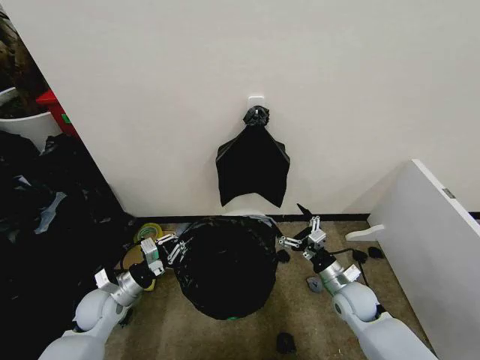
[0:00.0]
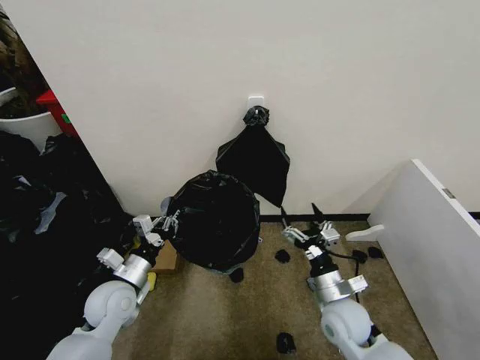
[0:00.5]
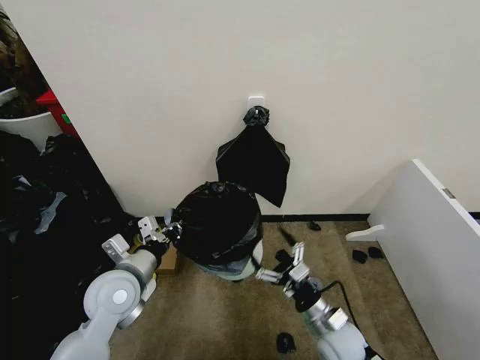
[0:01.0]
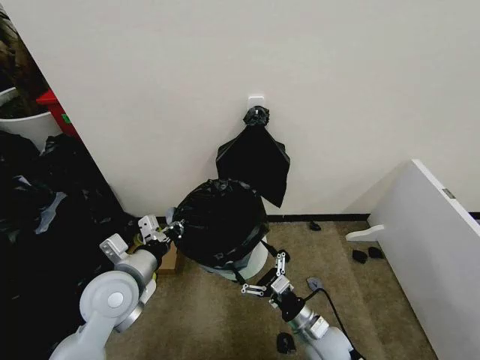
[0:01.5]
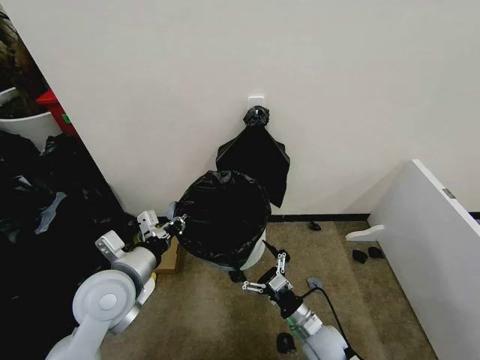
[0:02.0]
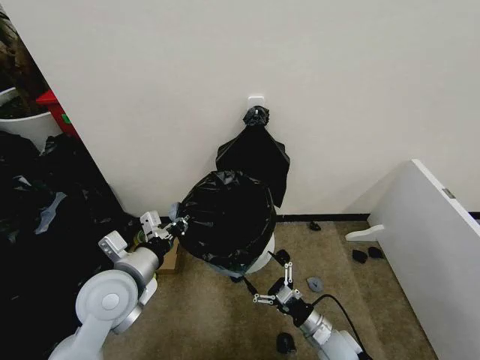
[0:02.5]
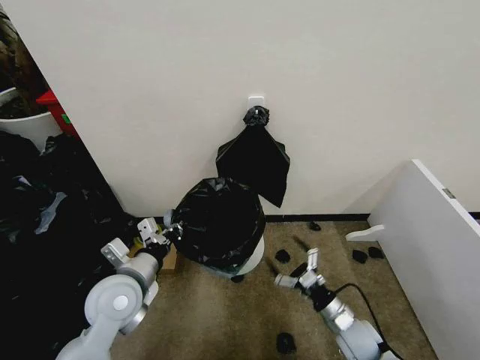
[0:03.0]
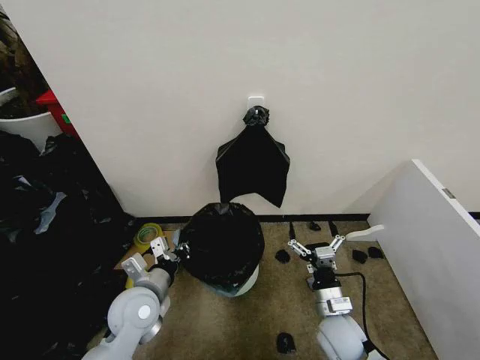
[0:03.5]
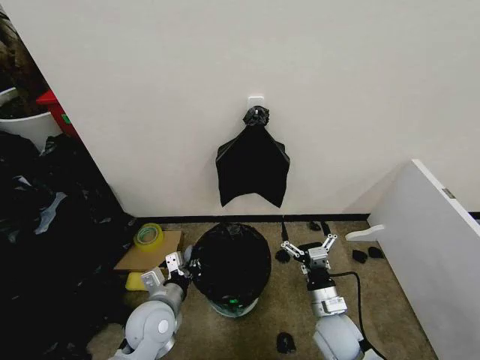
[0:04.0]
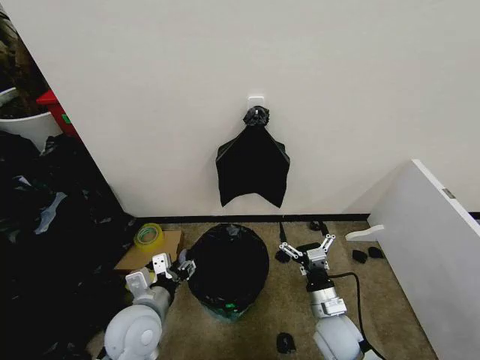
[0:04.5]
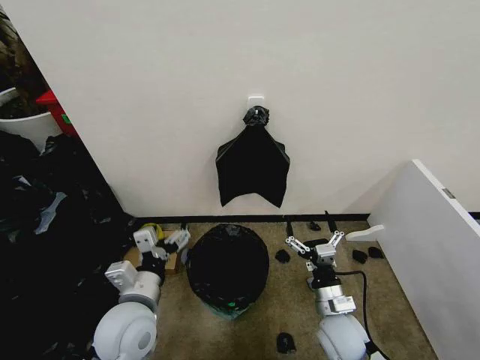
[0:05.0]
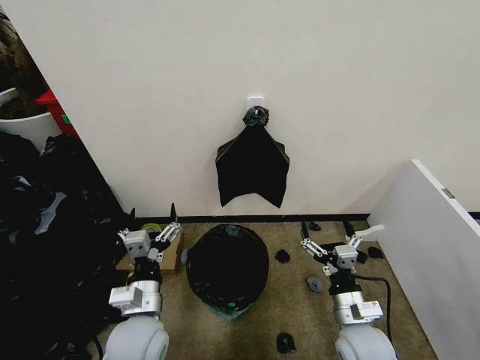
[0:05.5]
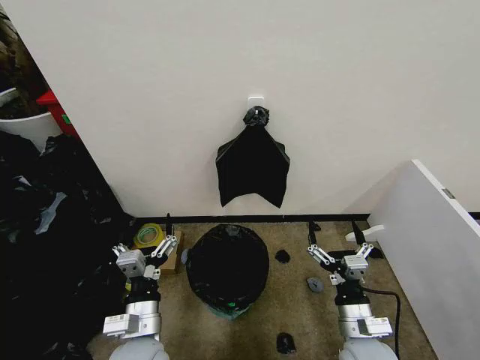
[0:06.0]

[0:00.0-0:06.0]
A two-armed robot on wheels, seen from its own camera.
Task of the whole recording: Place the garbage bag over the trash bin.
0:00.0 to 0:02.0: The left gripper moves upward and to the right, about 20 cm. Meanwhile the right gripper goes about 15 cm to the left and backward.
0:02.0 to 0:04.0: The left gripper is displaced downward by some 15 cm, while the right gripper goes to the right and returns, about 10 cm each way.
0:04.0 to 0:06.0: The left gripper heads backward, covering some 5 cm, and opens; the right gripper moves upward and backward, about 10 cm.

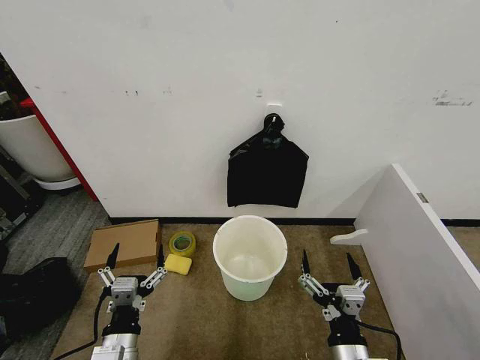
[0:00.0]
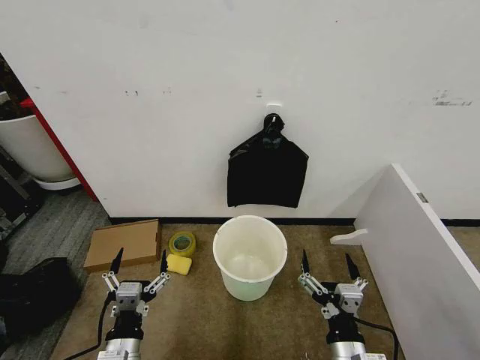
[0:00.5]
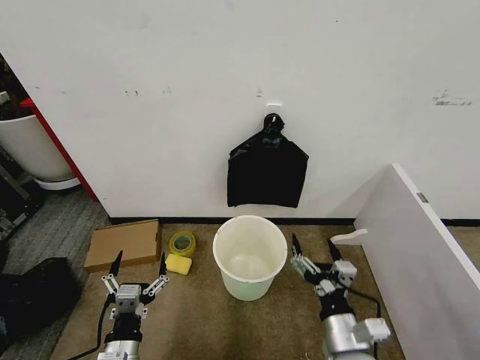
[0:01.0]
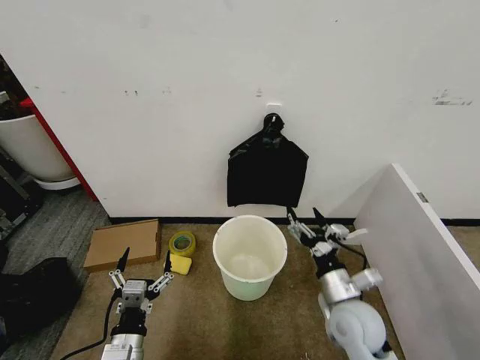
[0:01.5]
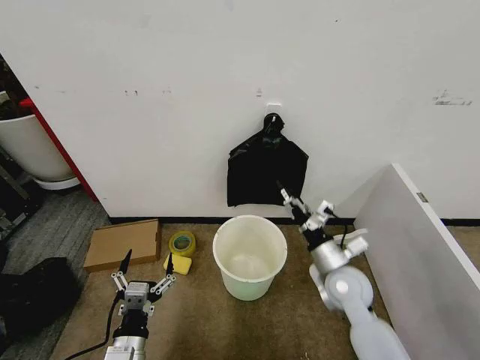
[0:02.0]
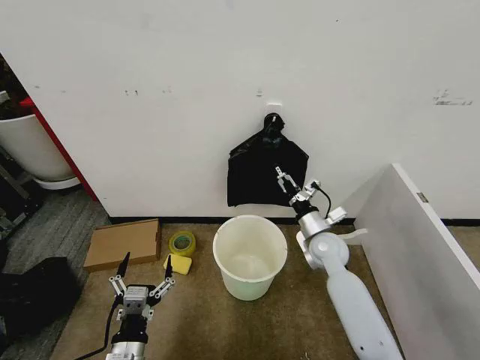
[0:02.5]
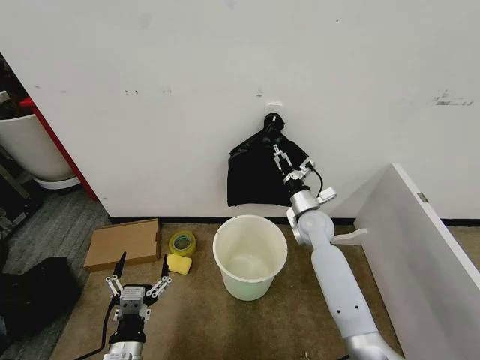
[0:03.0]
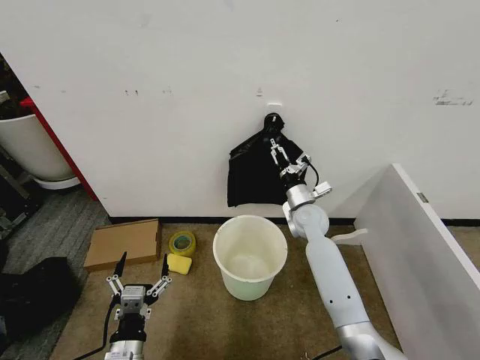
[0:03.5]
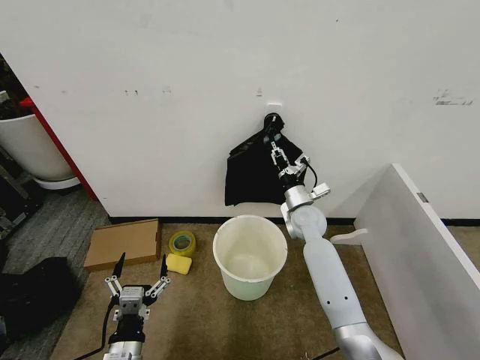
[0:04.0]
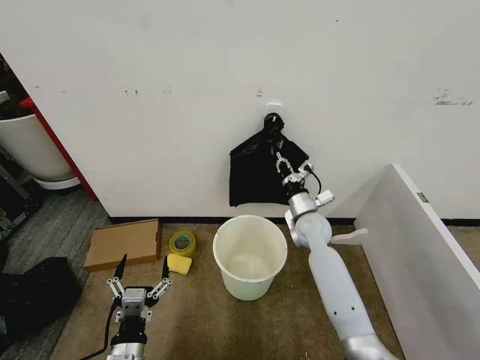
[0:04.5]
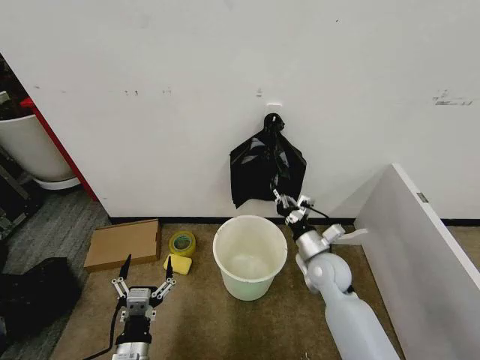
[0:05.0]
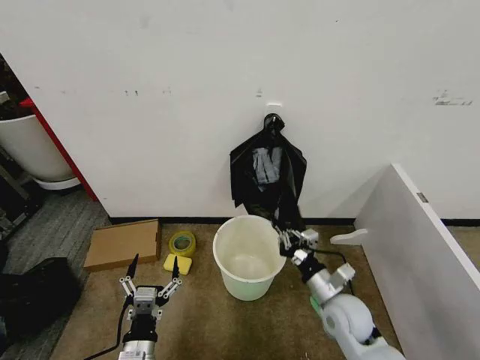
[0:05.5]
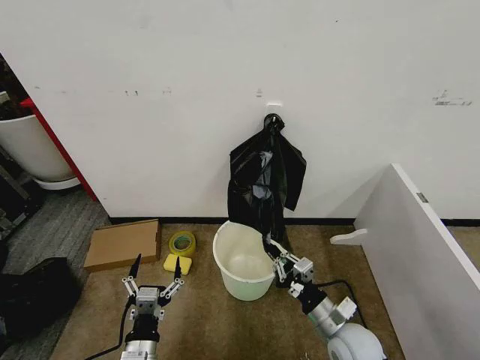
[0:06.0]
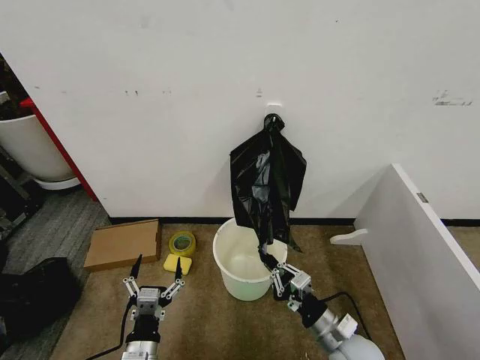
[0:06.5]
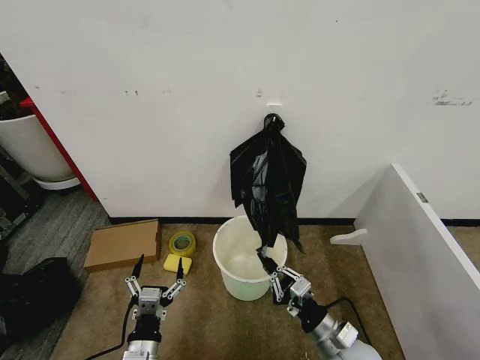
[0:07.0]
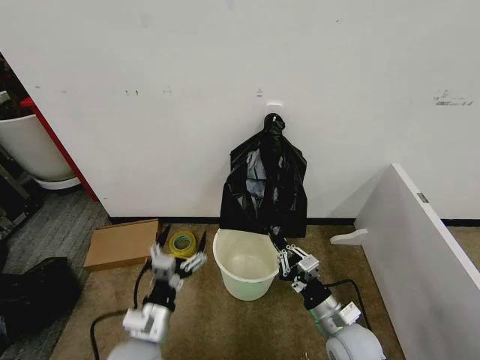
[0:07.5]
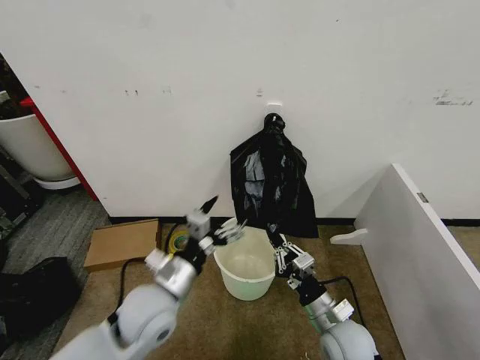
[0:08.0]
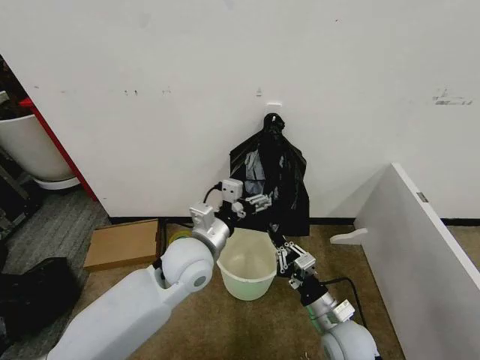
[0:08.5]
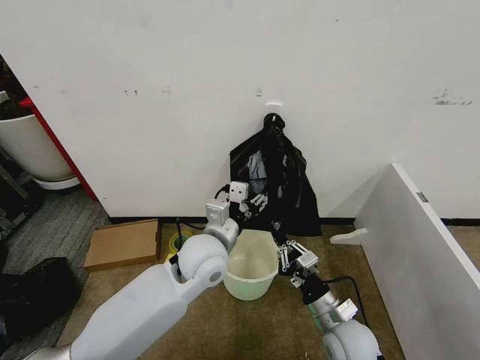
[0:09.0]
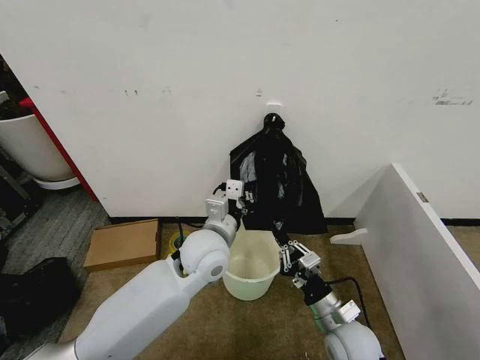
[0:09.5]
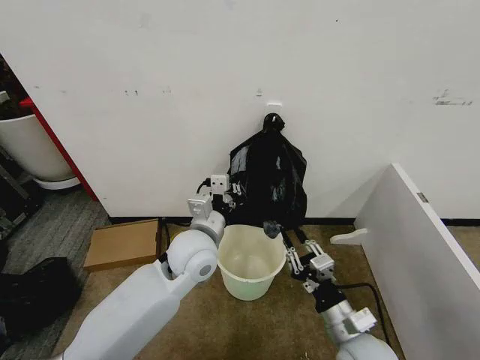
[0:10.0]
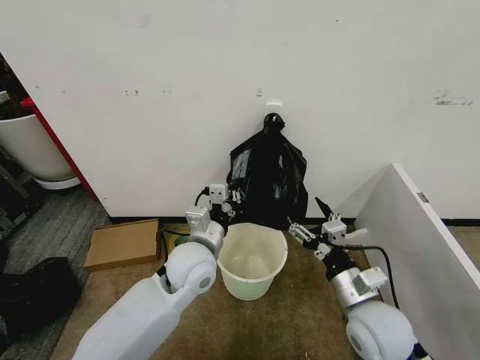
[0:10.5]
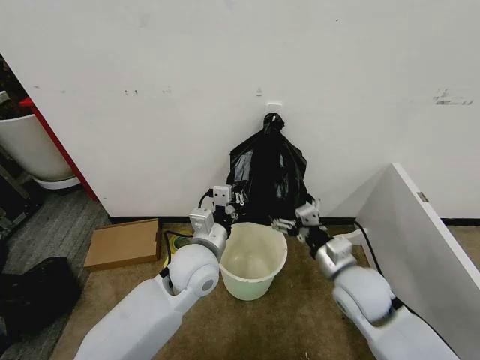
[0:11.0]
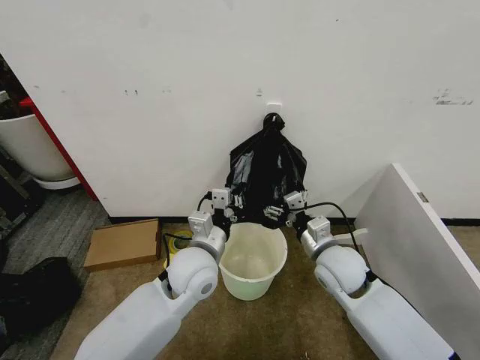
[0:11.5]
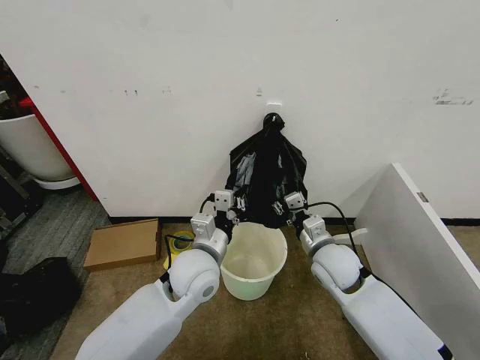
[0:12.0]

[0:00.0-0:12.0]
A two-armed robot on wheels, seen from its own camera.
Task of the whole recording: Place the garbage bag over the trash bin.
0:02.0 to 0:04.0: The right gripper goes approximately 15 cm forward, and closes its fingers.
0:04.0 to 0:06.0: The right gripper goes roughly 30 cm backward.
0:06.0 to 0:08.0: The left gripper is displaced upward and forward by about 20 cm.
0:08.0 to 0:10.0: The left gripper shifts about 10 cm forward and to the right, and closes up, while the right gripper moves approximately 5 cm.
0:10.0 to 0:12.0: The right gripper moves forward, some 15 cm, and opens, then closes once more.

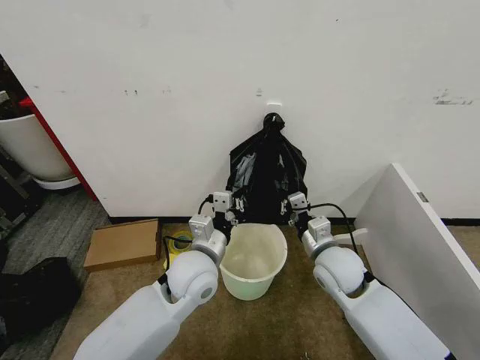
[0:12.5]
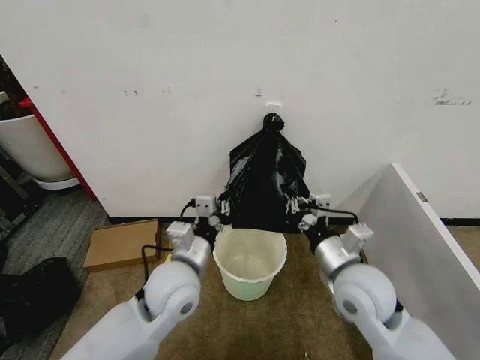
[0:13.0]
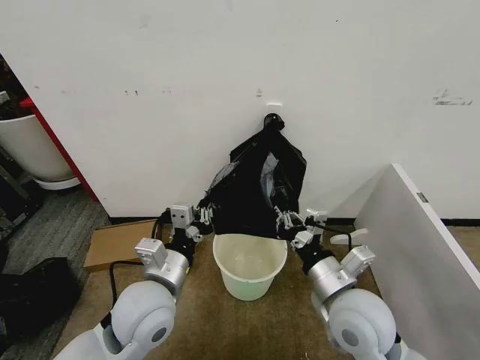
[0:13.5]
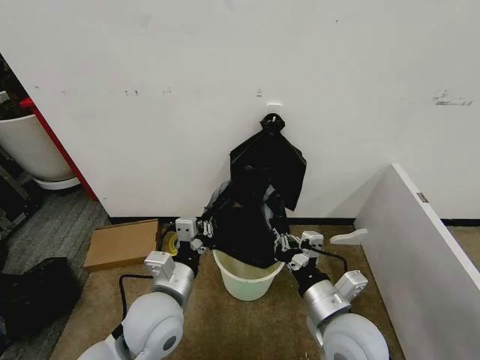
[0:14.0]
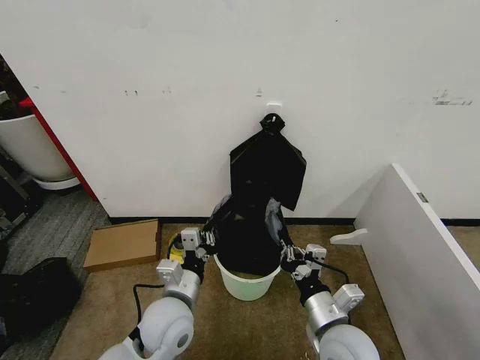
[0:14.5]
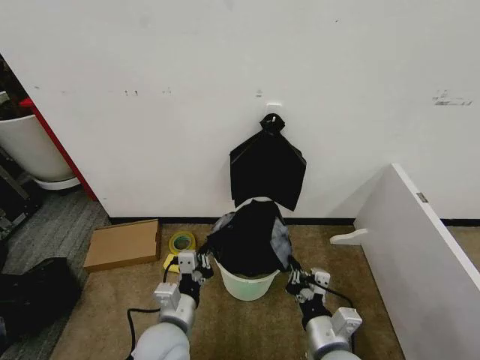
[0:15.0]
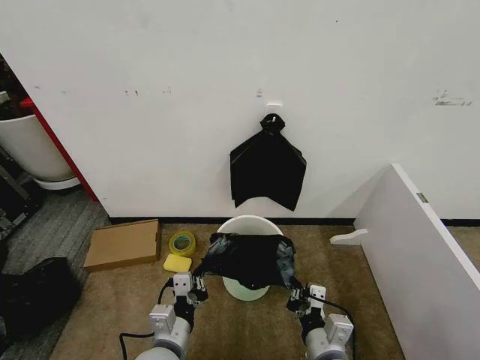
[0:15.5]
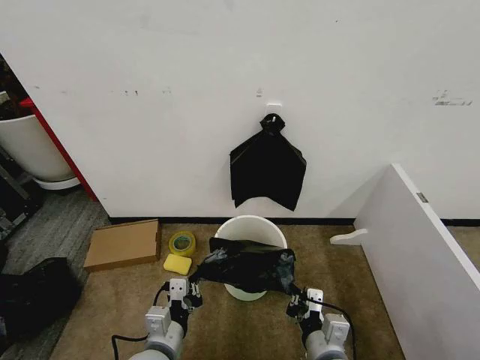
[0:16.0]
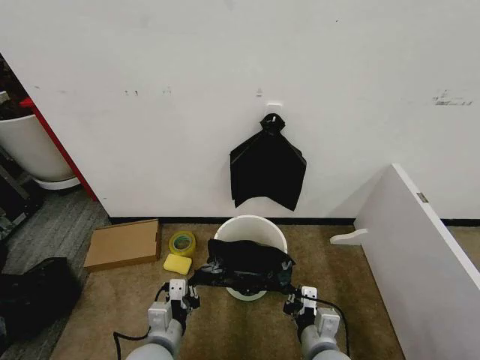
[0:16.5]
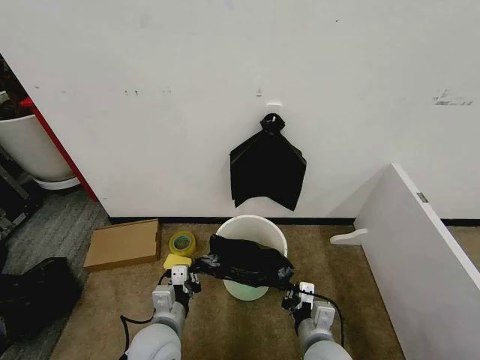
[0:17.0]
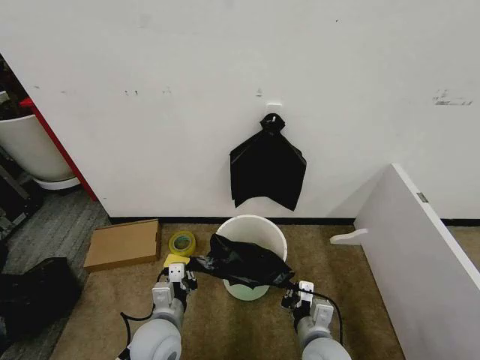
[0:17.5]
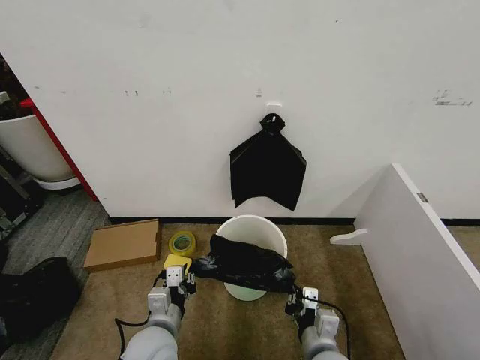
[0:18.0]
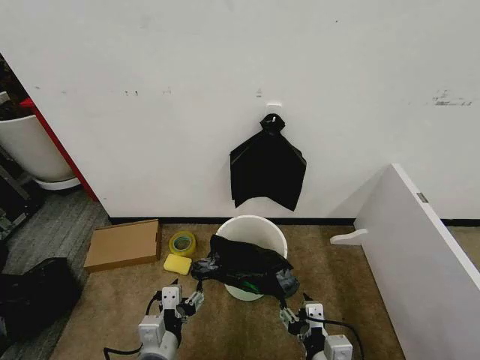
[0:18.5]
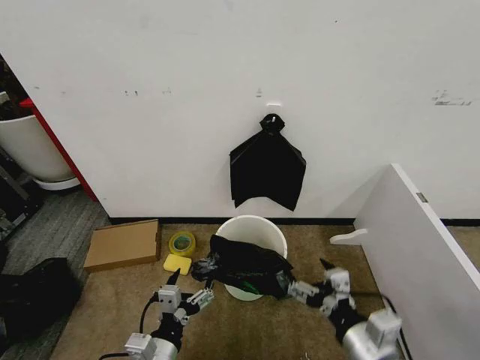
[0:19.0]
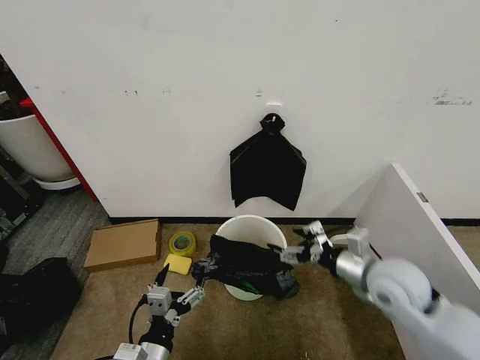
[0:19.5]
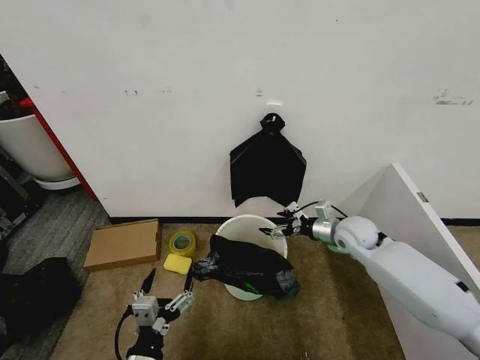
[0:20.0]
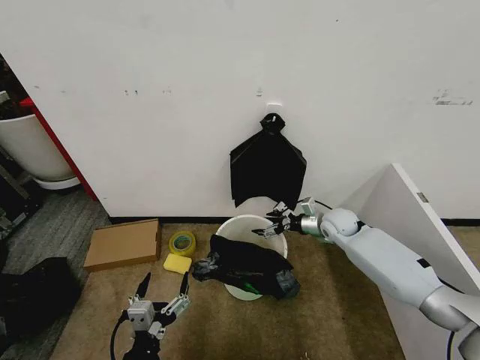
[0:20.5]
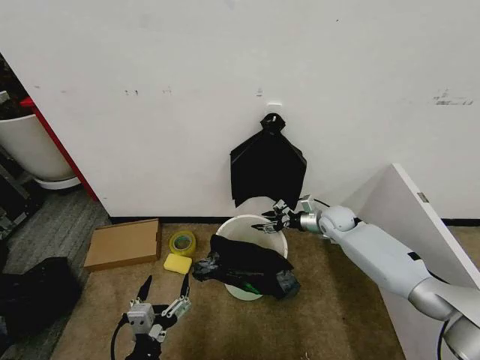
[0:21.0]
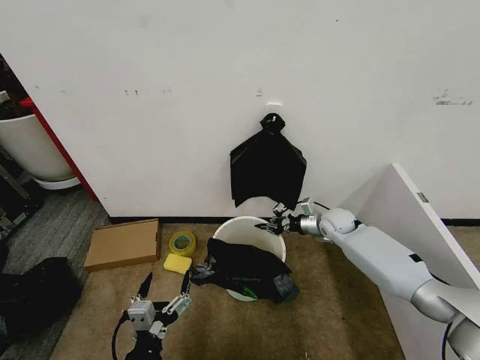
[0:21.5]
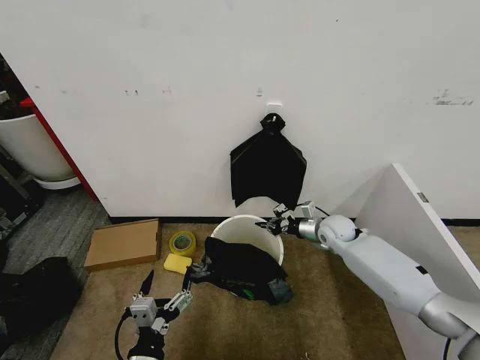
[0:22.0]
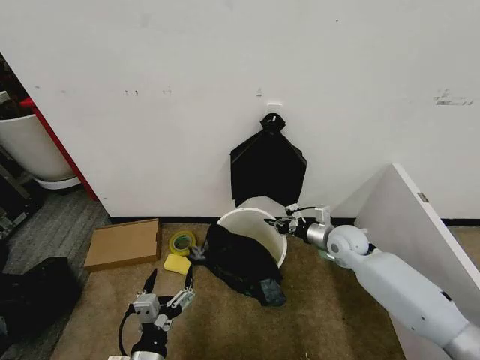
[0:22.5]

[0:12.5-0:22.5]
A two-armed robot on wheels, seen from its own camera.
Task of the whole recording: Place the garbage bag over the trash bin.
0:12.5 to 0:14.5: The left gripper shifts about 10 cm backward and downward, while the right gripper shifts approximately 15 cm backward.
0:14.5 to 0:16.5: The left gripper is displaced backward by about 5 cm; the right gripper moves downward, some 5 cm.
0:16.5 to 0:18.5: The right gripper goes approximately 5 cm backward, and opens its fingers, while the left gripper opens up.
0:18.5 to 0:20.5: The left gripper heads backward, covering roughly 5 cm, while the right gripper is displaced forward by some 40 cm, and opens up.
0:20.5 to 0:22.5: The right gripper closes its fingers.
